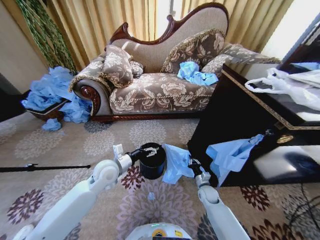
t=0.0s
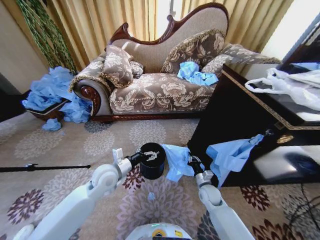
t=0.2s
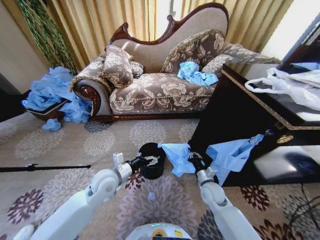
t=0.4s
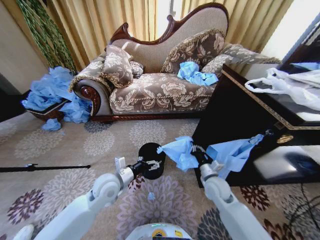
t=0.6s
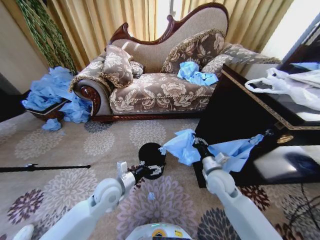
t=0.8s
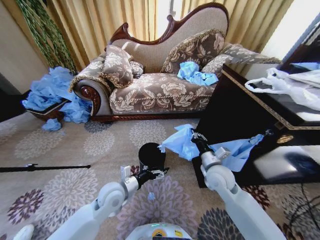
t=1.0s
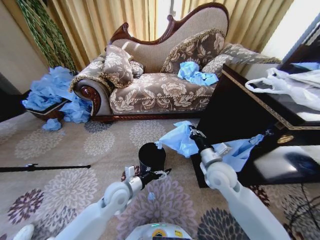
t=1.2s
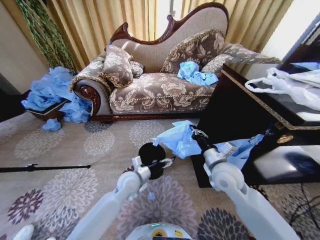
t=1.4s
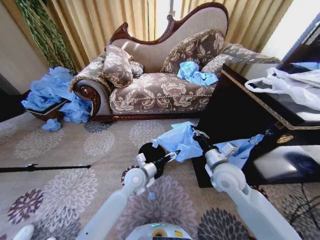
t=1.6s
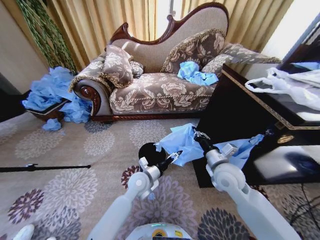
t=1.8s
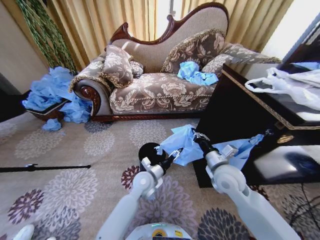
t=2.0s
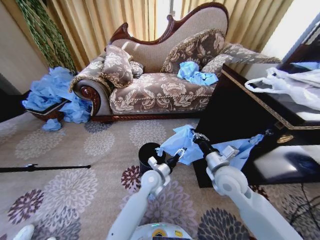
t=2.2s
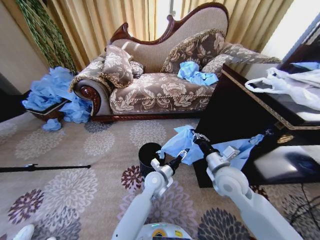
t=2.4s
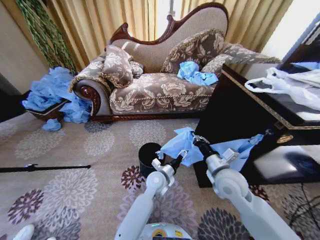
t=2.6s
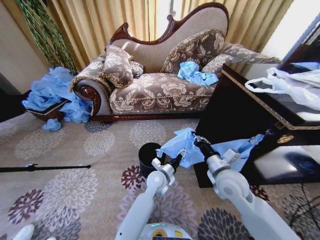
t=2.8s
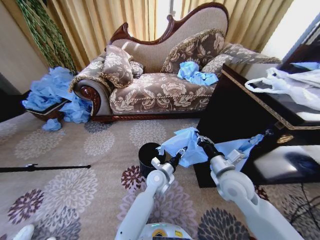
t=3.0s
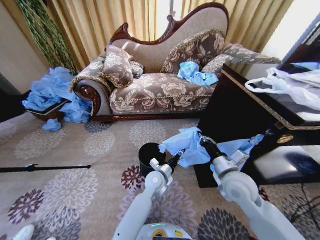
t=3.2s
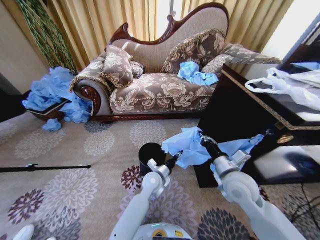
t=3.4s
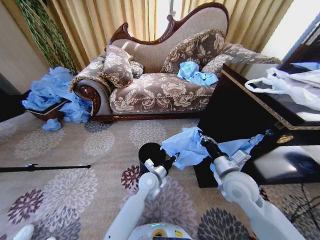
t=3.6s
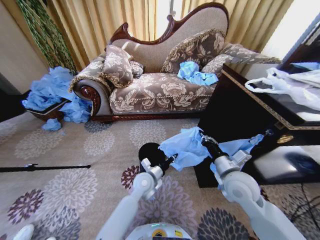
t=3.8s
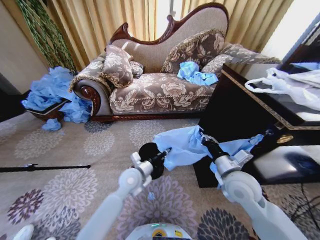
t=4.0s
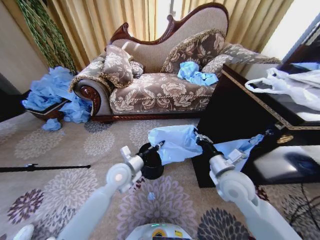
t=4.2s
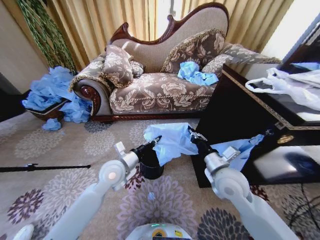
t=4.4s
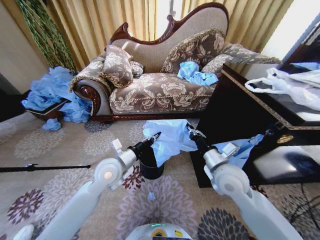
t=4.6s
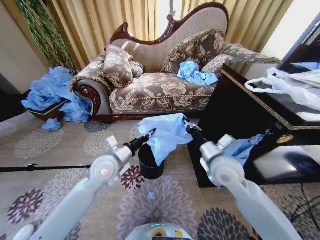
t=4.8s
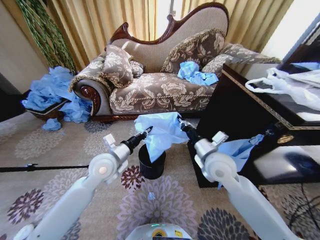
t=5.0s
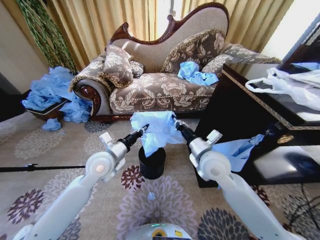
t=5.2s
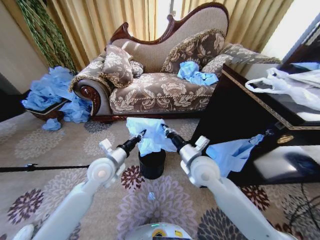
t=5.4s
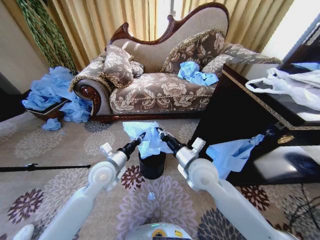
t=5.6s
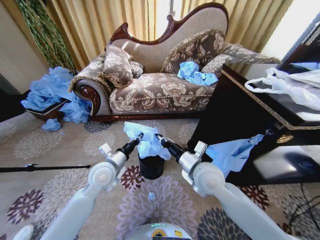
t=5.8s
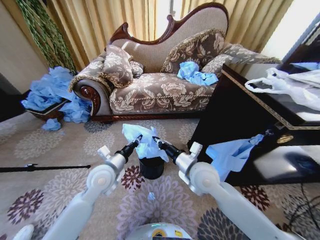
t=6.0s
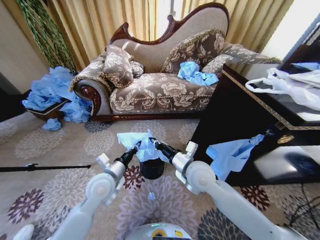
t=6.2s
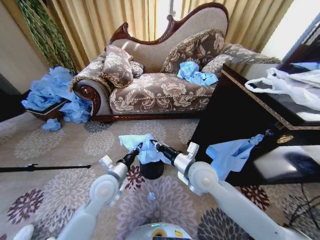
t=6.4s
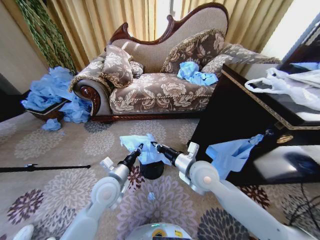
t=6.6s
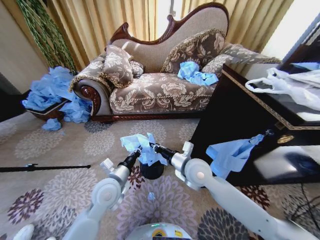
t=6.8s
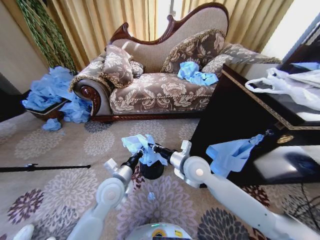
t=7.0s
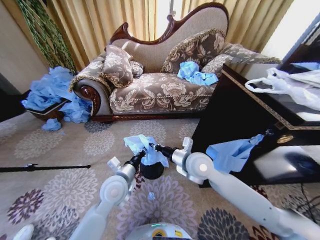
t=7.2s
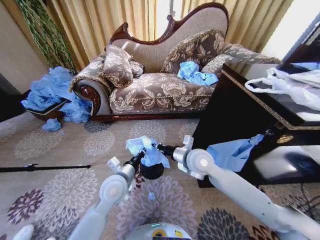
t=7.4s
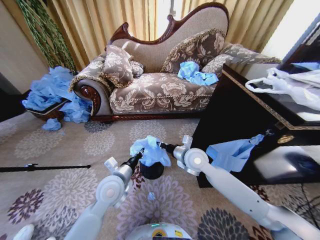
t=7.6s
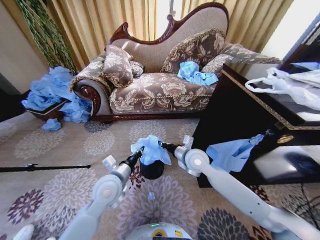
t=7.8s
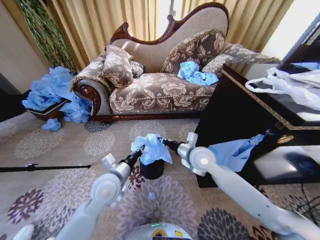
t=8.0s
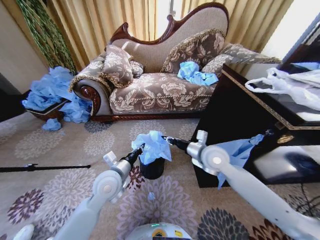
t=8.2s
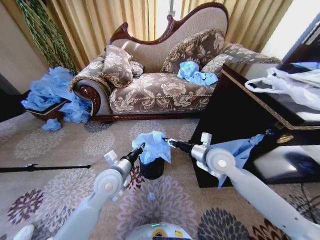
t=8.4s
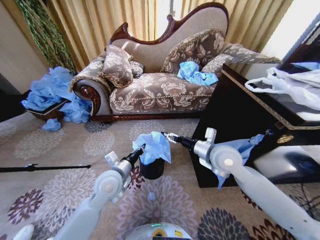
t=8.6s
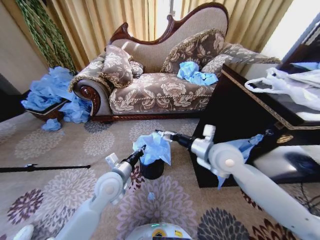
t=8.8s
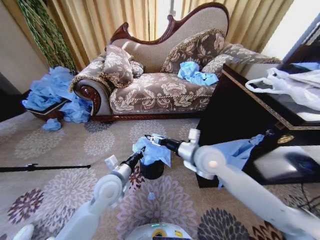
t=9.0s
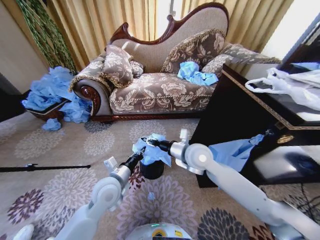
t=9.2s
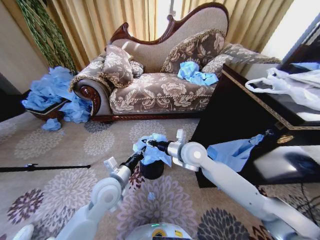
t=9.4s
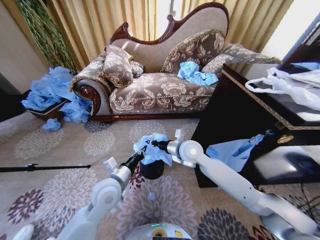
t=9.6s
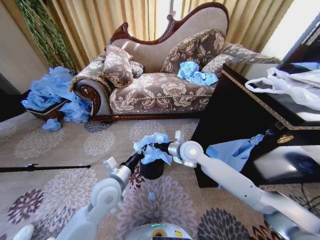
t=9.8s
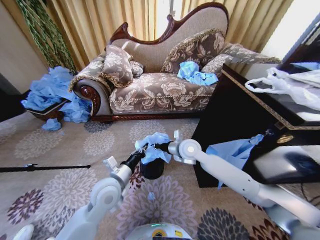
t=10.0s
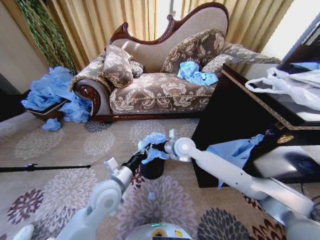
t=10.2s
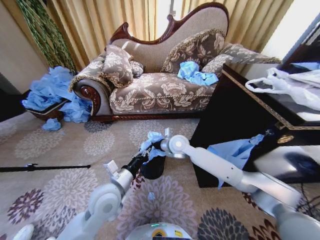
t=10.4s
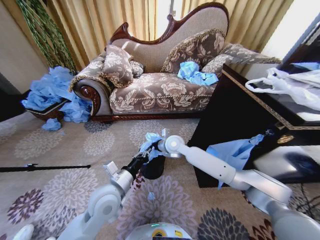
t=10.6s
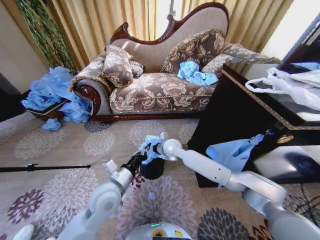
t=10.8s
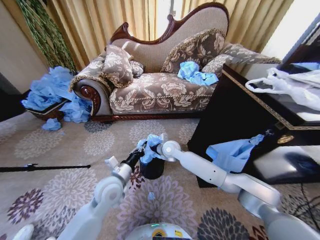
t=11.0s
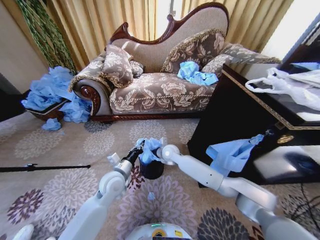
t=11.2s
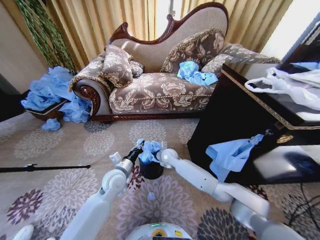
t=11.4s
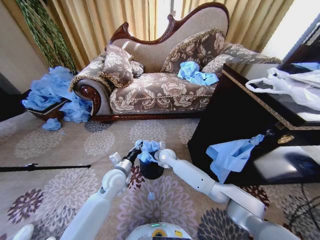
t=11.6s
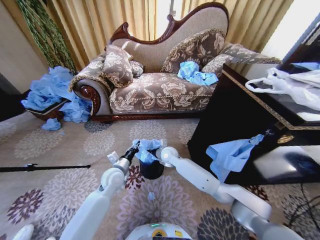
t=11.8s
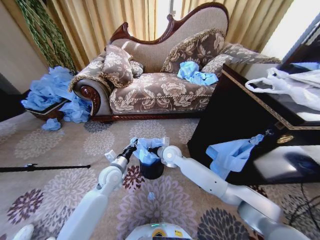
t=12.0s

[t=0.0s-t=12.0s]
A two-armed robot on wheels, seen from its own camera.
Task of the whole recording: Place a garbage bag over the trash bin.
t=0.0s to t=1.6s: The left gripper is displaced to the right and downward by roughly 10 cm; the right gripper goes roughly 30 cm upward.
t=1.6s to t=3.0s: The left gripper heads to the right, covering approximately 10 cm, and closes up.
t=3.0s to t=4.4s: The left gripper travels to the left and upward by approximately 20 cm, and closes its fingers.
t=4.4s to t=6.0s: The right gripper goes some 10 cm to the left.
t=6.0s to t=7.6s: The left gripper shifts by some 5 cm; the right gripper goes approximately 10 cm forward.
t=7.6s to t=9.0s: The right gripper is displaced upward by some 5 cm, and opens up.
t=9.0s to t=10.4s: The right gripper travels forward, to the left and downward by some 15 cm, and closes up.
t=10.4s to t=12.0s: The right gripper travels downward by roughly 5 cm; the left gripper shifts roughly 15 cm forward and downward.

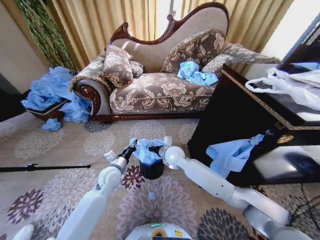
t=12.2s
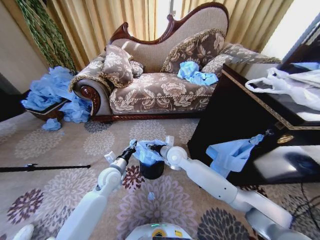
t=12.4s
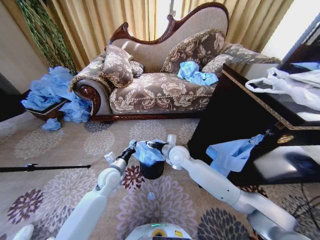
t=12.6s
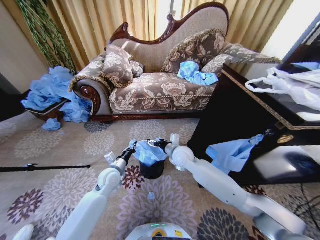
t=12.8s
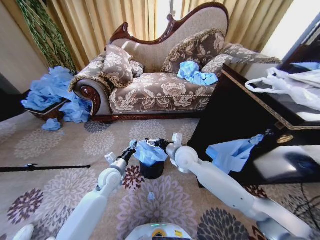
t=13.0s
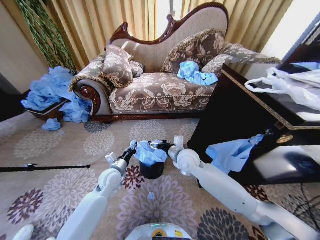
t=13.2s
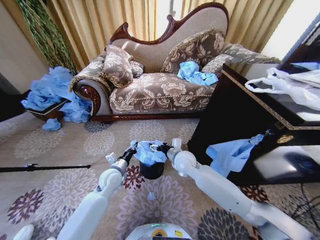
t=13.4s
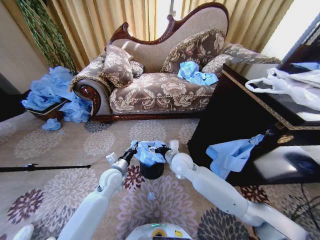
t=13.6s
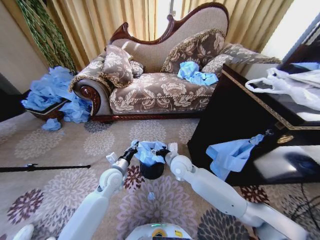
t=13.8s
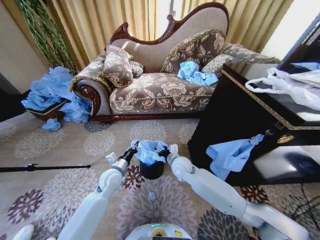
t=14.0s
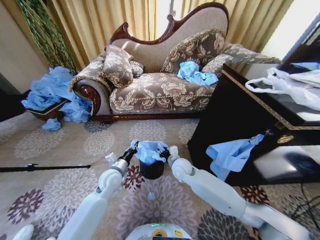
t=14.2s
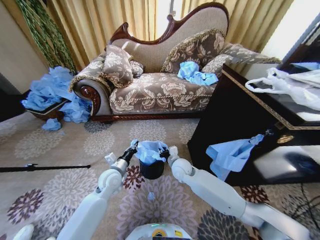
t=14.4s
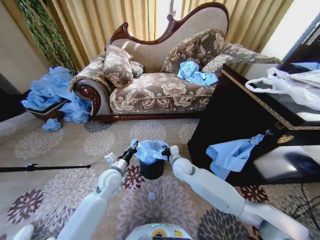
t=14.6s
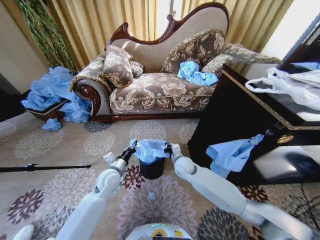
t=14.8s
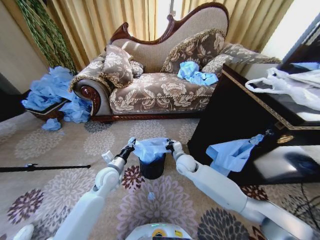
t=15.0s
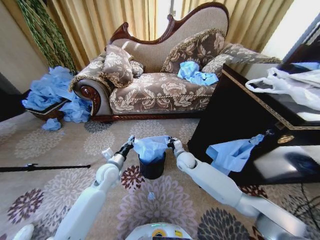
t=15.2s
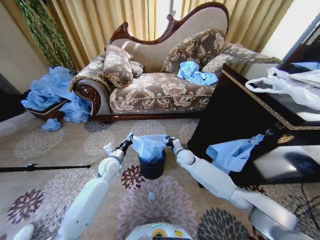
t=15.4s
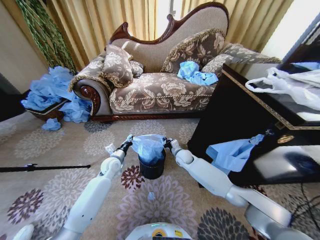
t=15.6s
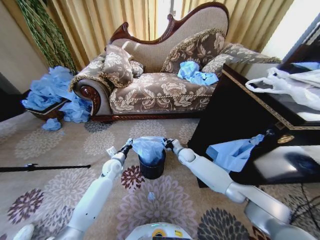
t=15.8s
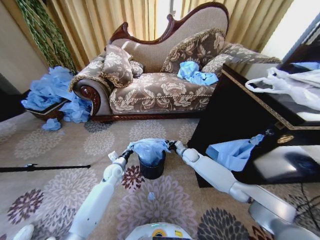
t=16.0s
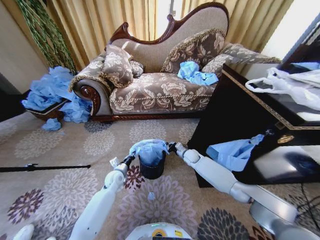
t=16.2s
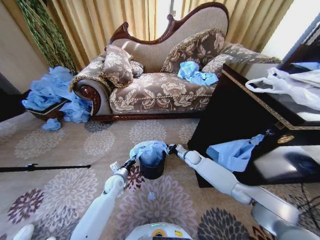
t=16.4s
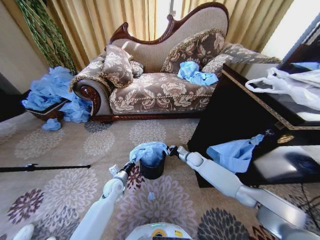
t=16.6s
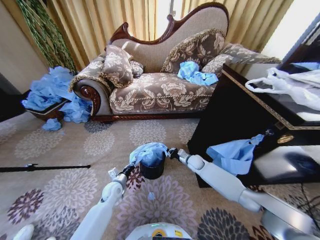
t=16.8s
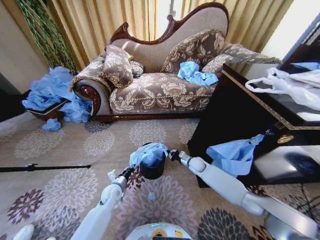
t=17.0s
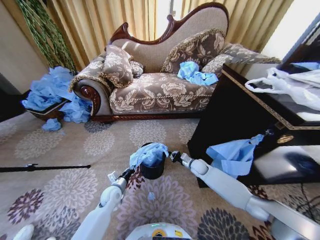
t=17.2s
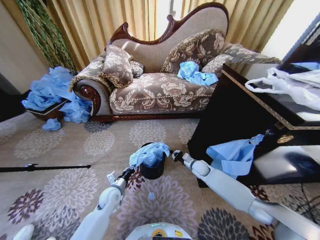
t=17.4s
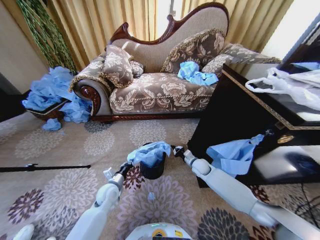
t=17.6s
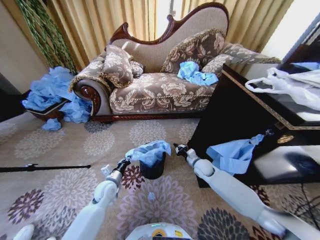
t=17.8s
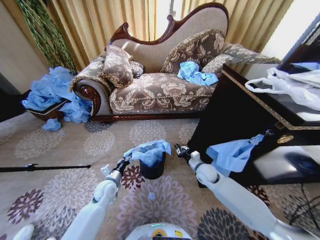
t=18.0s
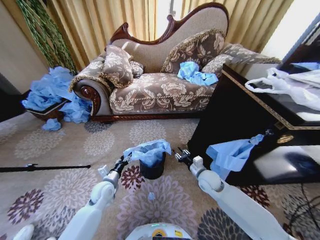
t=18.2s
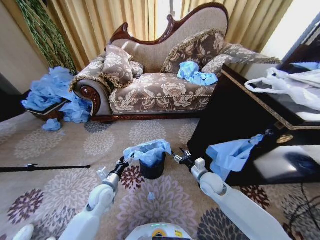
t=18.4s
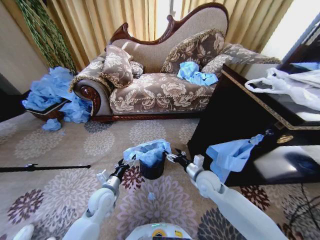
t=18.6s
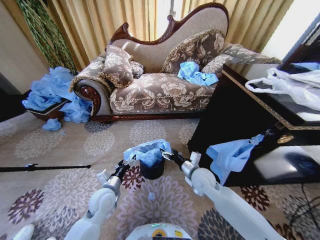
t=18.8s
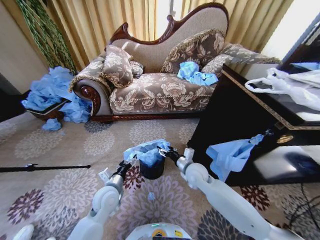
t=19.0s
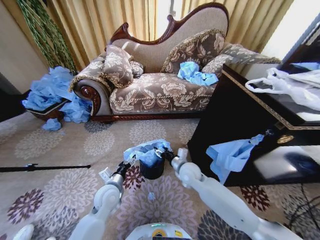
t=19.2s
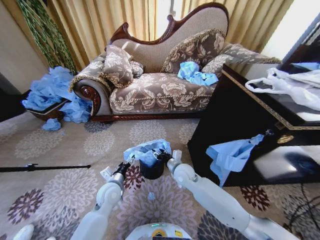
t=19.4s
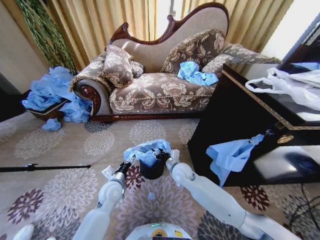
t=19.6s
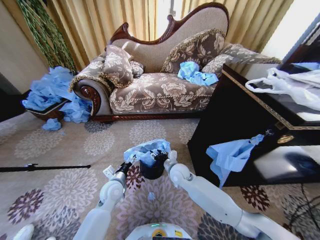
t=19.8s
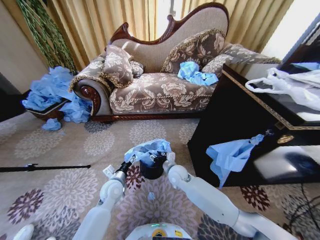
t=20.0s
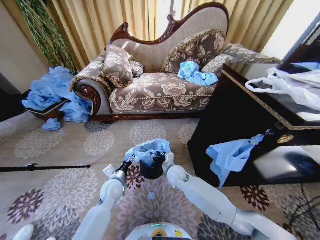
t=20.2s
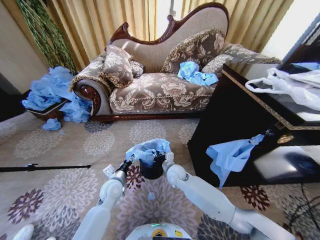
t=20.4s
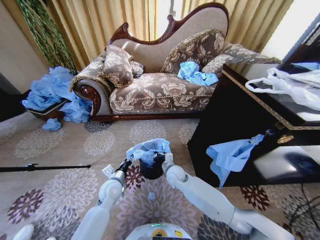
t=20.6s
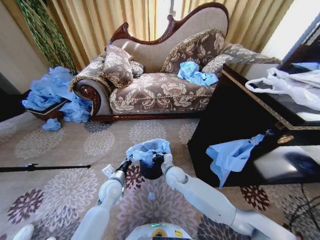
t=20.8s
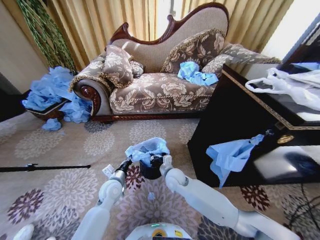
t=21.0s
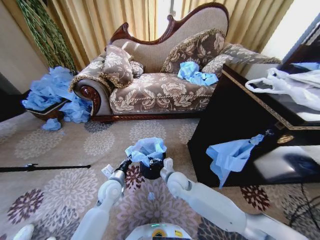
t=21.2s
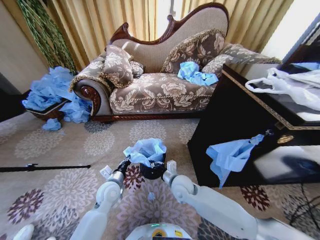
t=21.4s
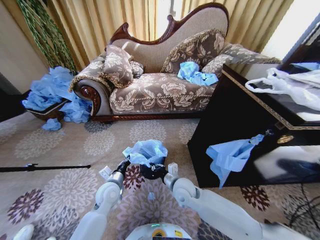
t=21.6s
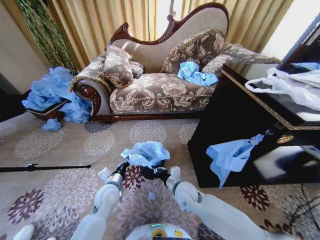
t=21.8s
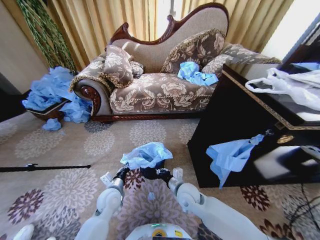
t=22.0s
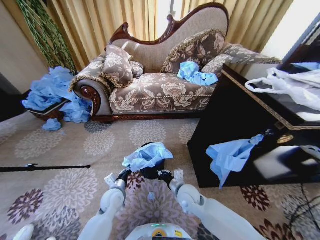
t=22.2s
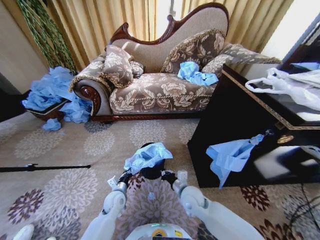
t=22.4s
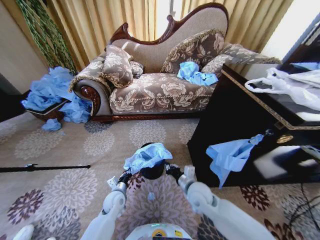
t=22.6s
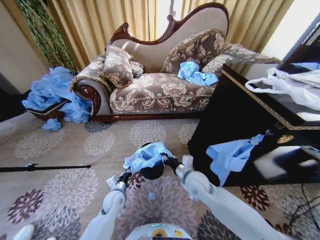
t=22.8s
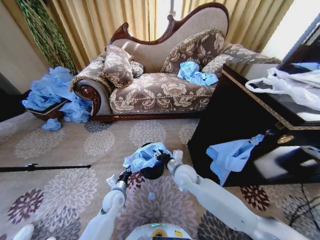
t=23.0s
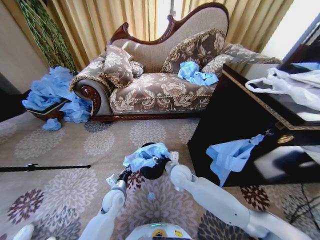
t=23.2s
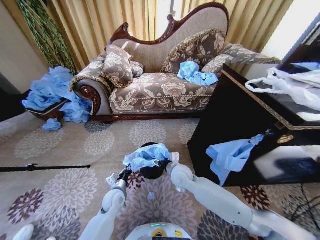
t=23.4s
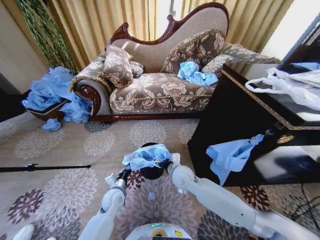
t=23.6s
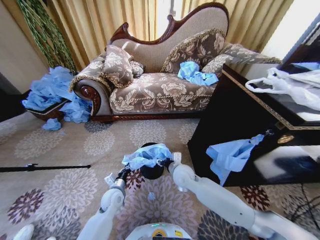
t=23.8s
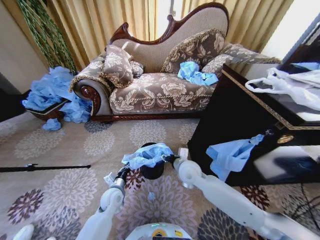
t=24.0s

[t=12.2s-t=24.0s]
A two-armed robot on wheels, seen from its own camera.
Task of the whole recording: Place a garbage bag over the trash bin.
t=12.2s to t=13.6s: The right gripper ends up approximately 5 cm from where it was, and opens up.
t=13.6s to t=15.2s: The right gripper shifts some 10 cm downward and forward, and closes.
t=15.2s to t=16.6s: The right gripper is displaced to the right, downward and forward by some 10 cm; the left gripper is displaced downward by some 10 cm.
t=16.6s to t=18.2s: The right gripper shifts roughly 15 cm backward. The left gripper ends up roughly 5 cm from where it was, and opens up.
t=18.2s to t=19.6s: The left gripper ends up some 5 cm from where it was, and opens its fingers. Meanwhile the right gripper is displaced to the left by roughly 15 cm, and opens, then closes again.
t=19.6s to t=21.0s: The left gripper closes its fingers, while the right gripper closes up.
t=21.0s to t=22.6s: The right gripper goes approximately 10 cm to the right and backward, while the left gripper is displaced downward by roughly 10 cm.
t=22.6s to t=24.0s: The right gripper moves forward, about 5 cm, and opens its fingers.
